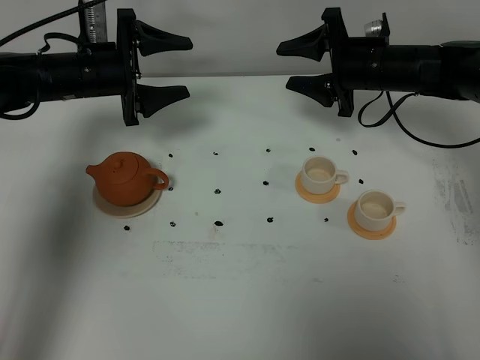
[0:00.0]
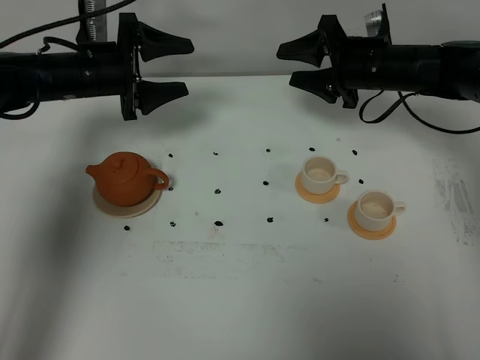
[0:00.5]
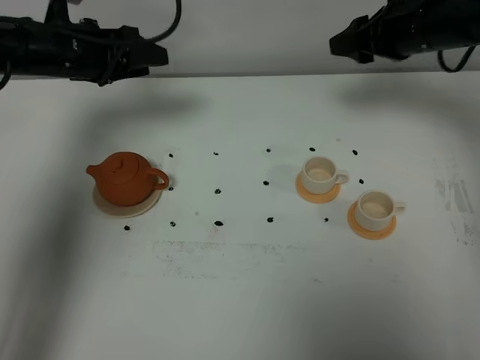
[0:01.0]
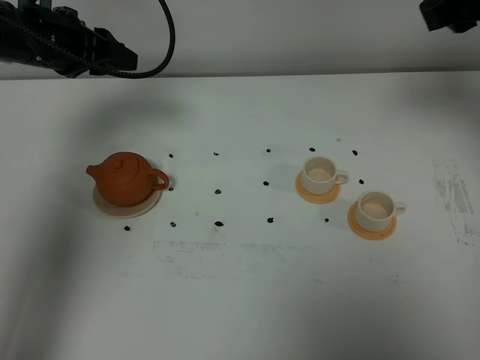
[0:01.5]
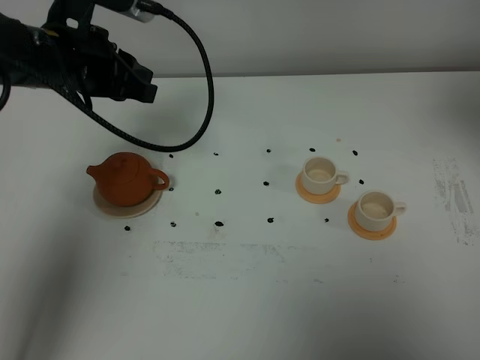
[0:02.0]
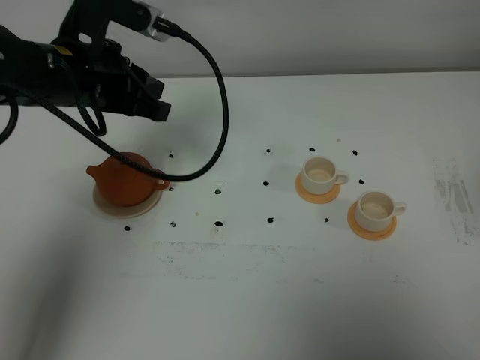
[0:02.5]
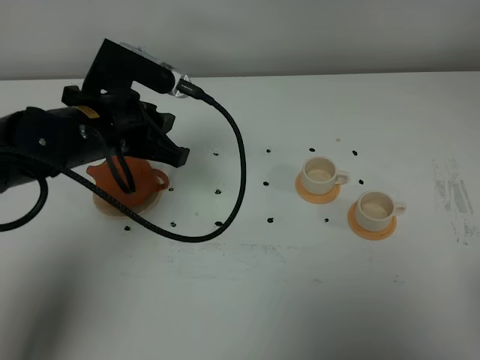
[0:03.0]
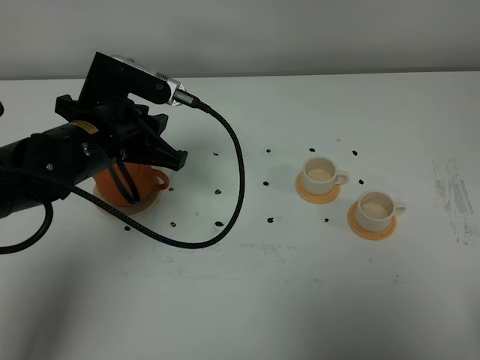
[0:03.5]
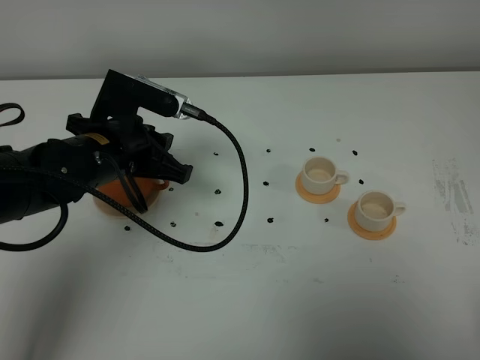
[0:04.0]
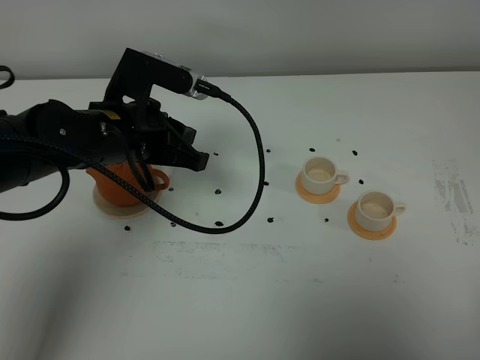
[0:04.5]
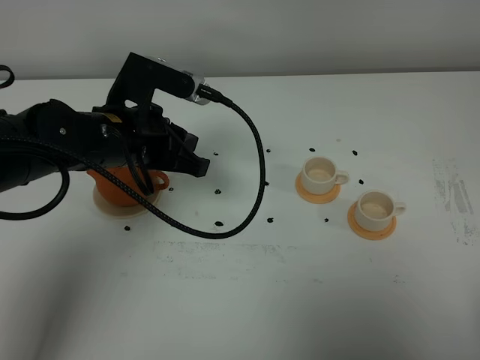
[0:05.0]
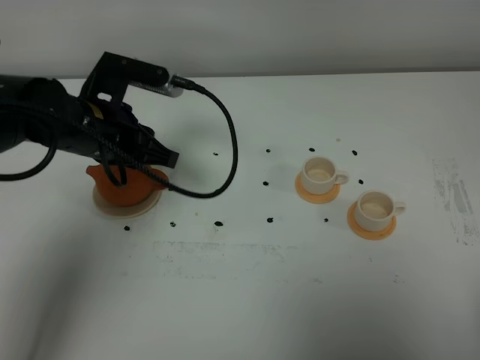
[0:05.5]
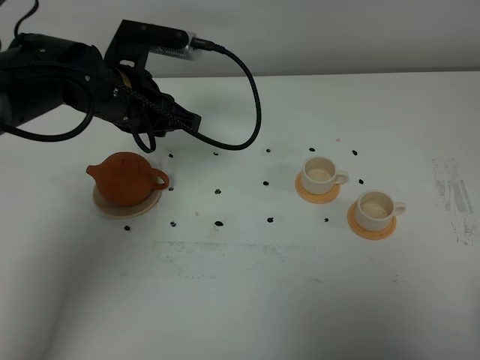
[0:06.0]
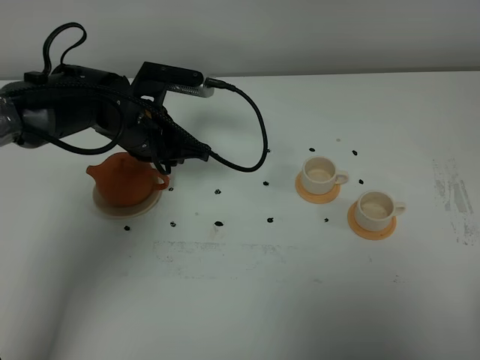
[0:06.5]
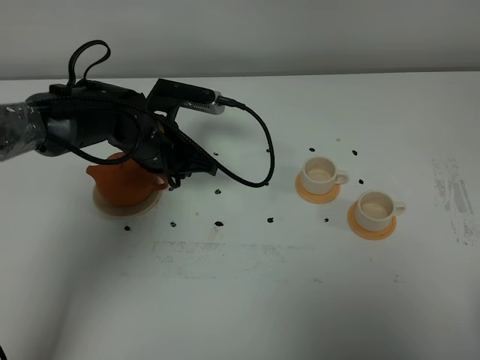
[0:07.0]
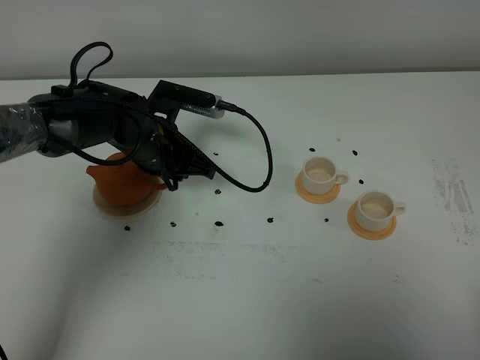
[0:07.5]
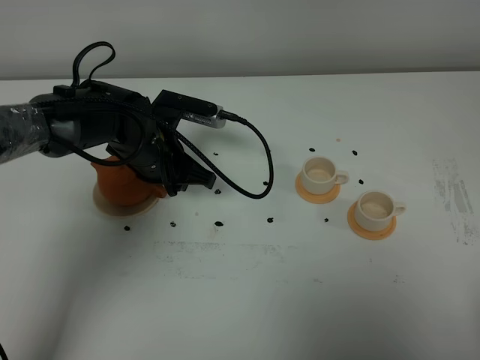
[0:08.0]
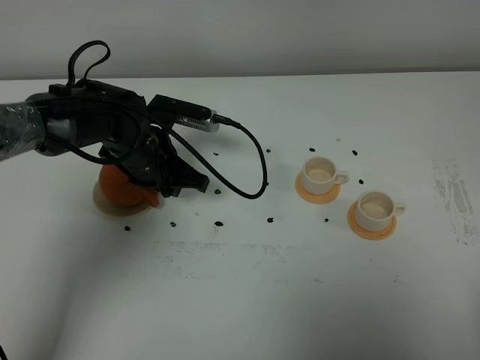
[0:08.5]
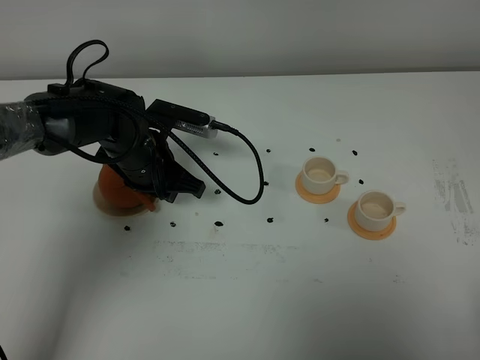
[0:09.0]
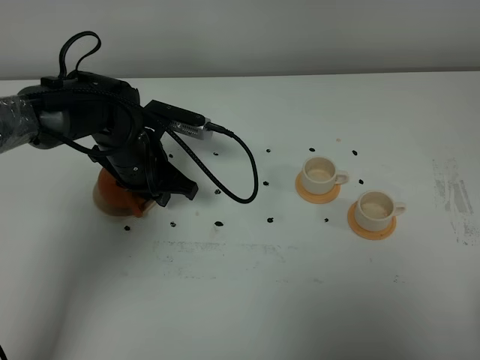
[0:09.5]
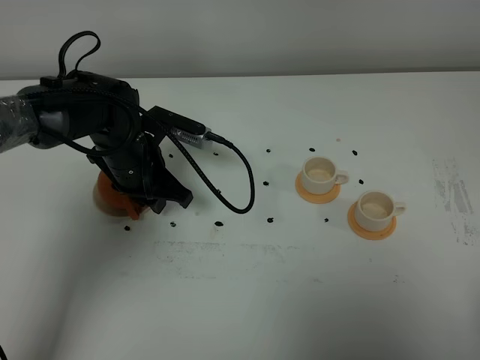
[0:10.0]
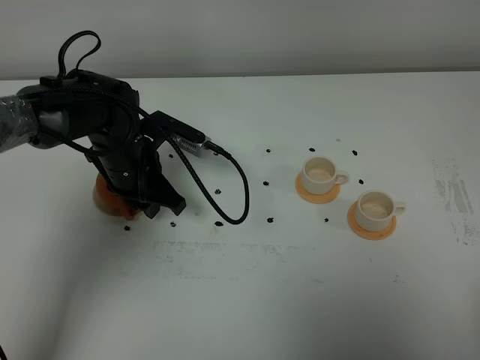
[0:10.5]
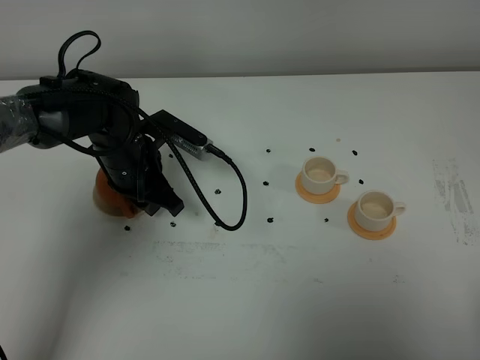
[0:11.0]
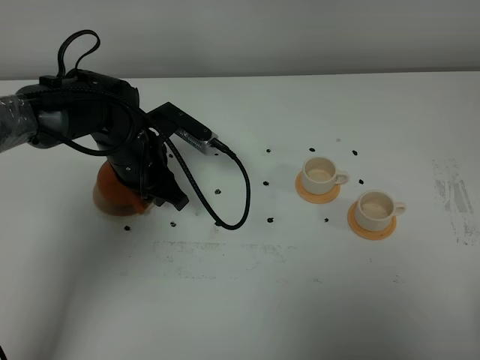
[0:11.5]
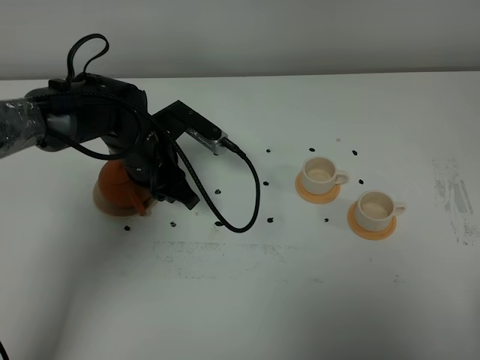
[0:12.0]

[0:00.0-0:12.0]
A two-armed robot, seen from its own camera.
Task of the whole recording: grasp the brown teapot and pour the tea into the two white teacups one by one, put the brown teapot back in its original place.
0:00.0 to 0:02.0: The right gripper shifts about 35 cm upward and backward. The left gripper shifts about 15 cm upward and backward, and closes its fingers.
0:02.0 to 0:04.0: The right gripper is displaced backward and downward by some 30 cm, and closes up. Meanwhile the left gripper goes some 10 cm downward and backward.
0:04.0 to 0:06.0: The left gripper heads forward, covering roughly 5 cm.
0:06.0 to 0:08.0: The left gripper moves downward, approximately 10 cm.
0:08.0 to 0:10.0: The grippers make only small movements.
0:10.0 to 0:12.0: The grippers make only small movements.

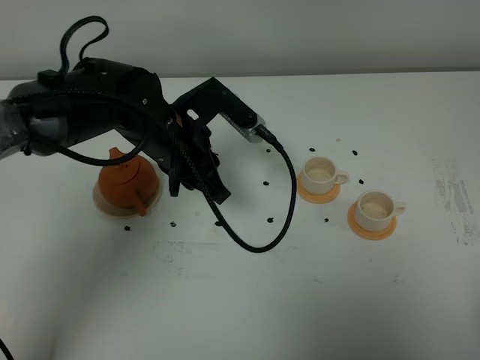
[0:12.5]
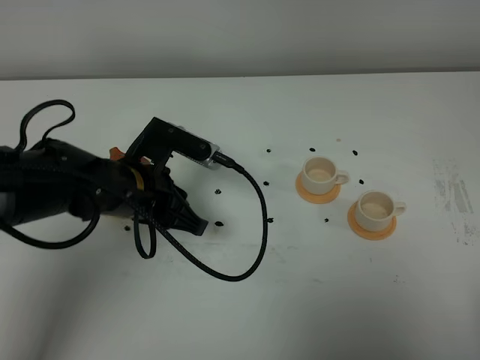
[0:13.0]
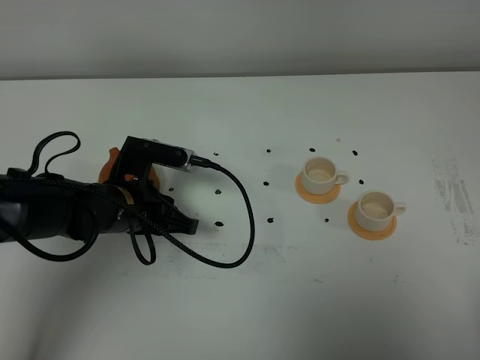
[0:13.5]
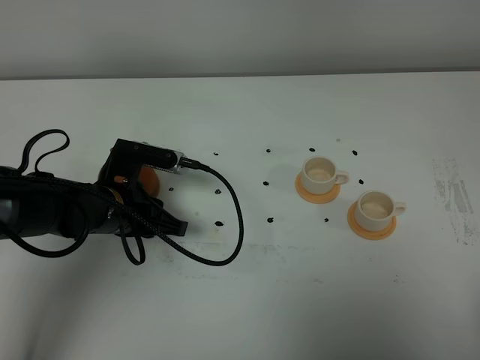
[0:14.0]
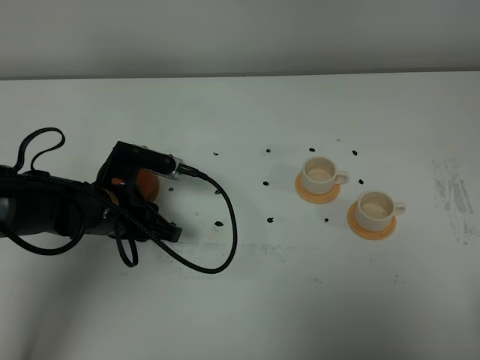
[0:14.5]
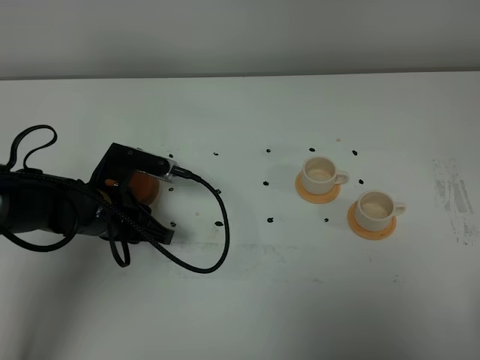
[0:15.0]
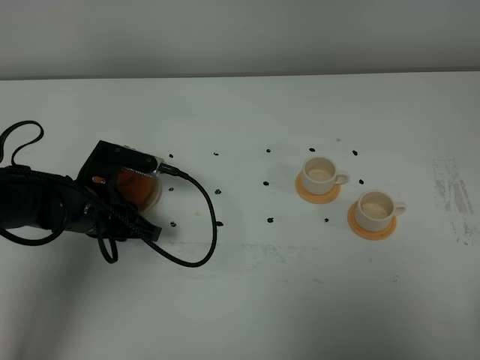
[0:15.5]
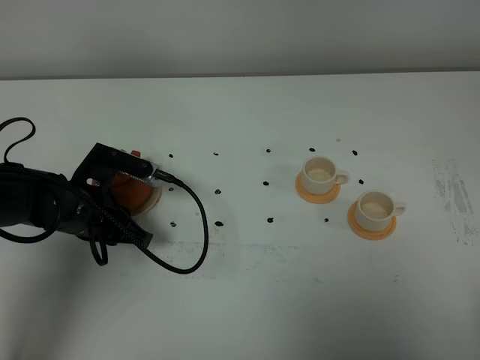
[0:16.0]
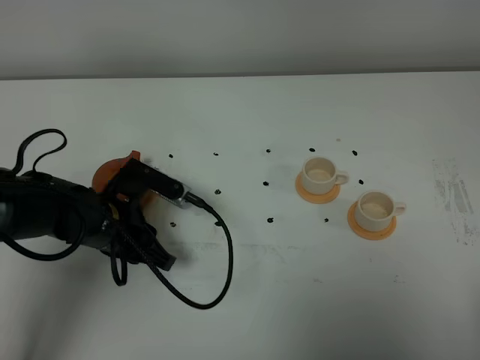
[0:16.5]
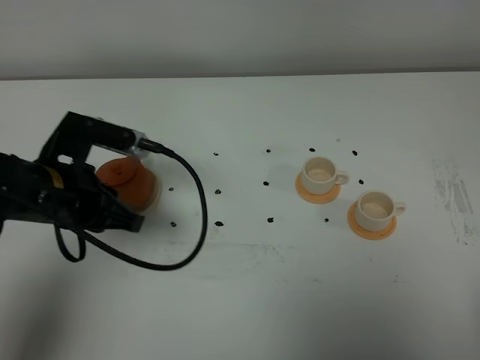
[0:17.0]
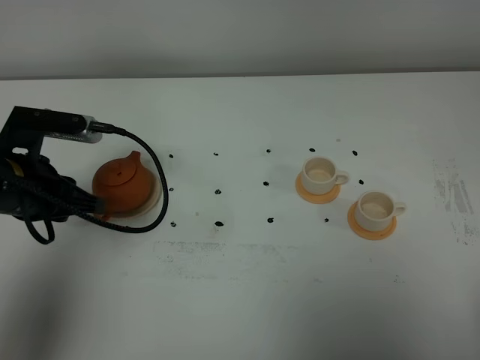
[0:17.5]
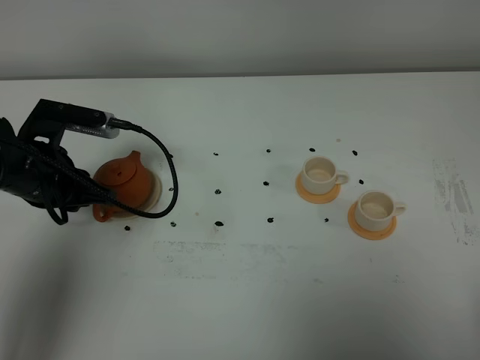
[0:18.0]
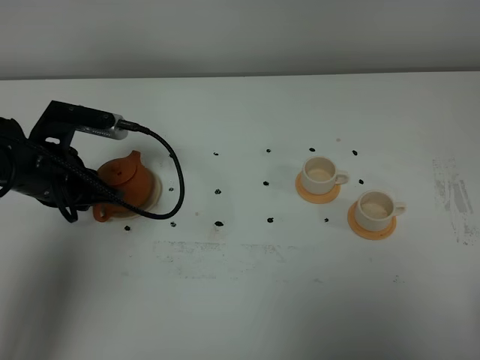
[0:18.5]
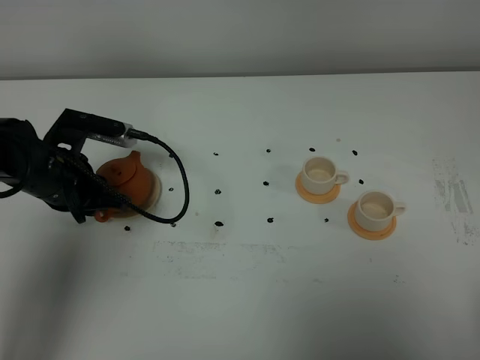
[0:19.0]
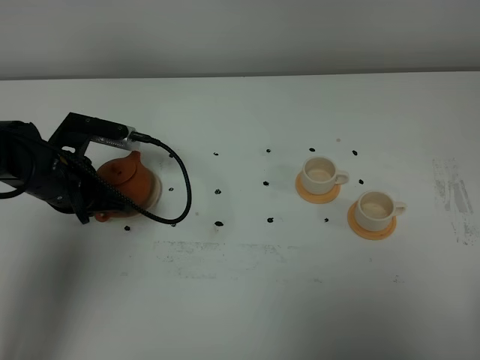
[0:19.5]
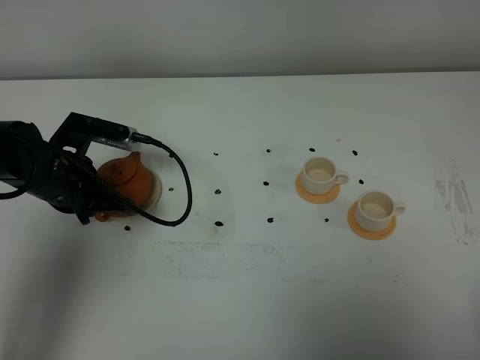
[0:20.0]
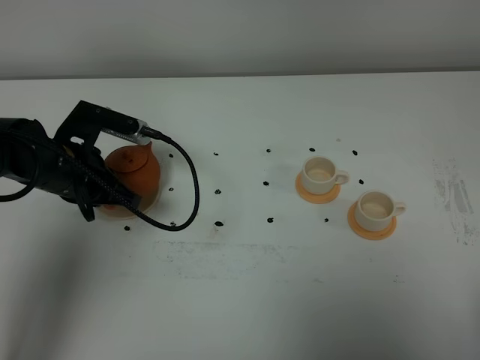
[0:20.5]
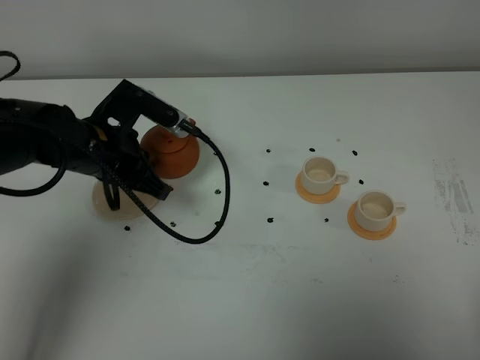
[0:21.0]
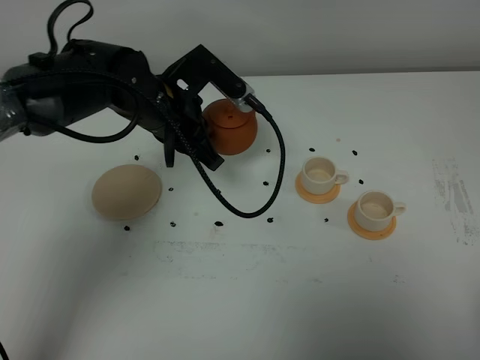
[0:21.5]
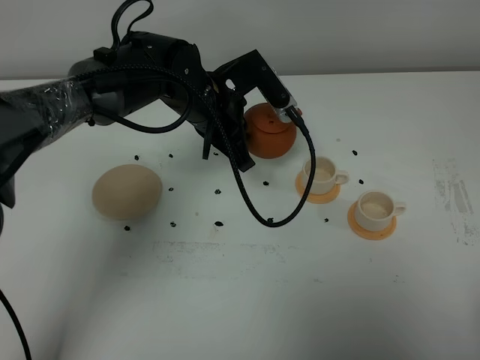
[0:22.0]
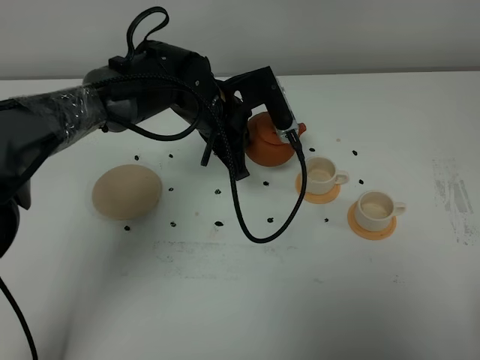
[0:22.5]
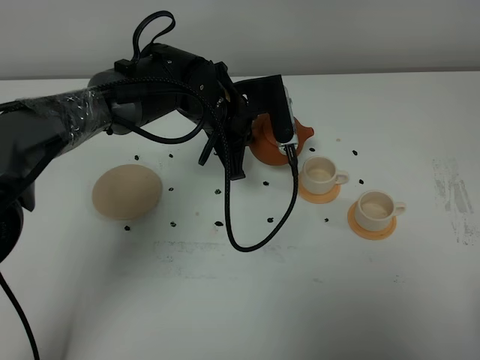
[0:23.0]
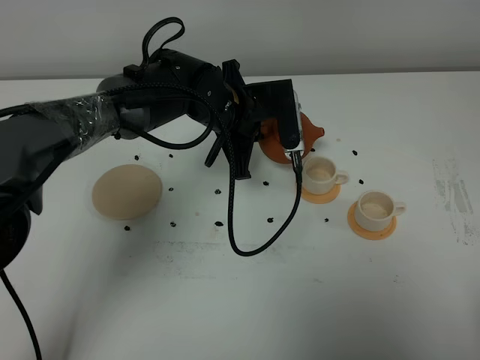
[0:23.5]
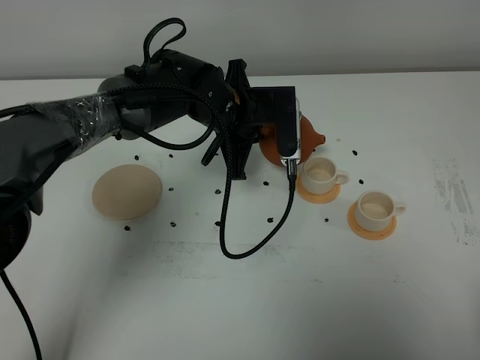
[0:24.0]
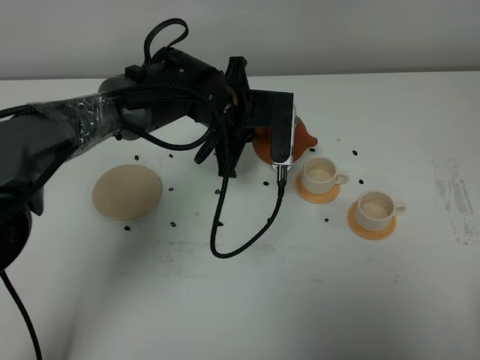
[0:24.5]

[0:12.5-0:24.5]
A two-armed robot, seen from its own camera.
Task of the whole recording: grasp the brown teapot and pour the tea into the two white teacups one by one, put the brown teapot back in its original place.
Step, 0:12.5 to 0:20.5: Pick up the teapot with the left gripper.
0:12.5 to 0:14.5: The left gripper moves downward and to the left, about 15 cm.
0:14.5 to 0:16.5: The grippers stay close to where they were, moving slightly.
0:16.5 to 0:18.5: The left gripper goes approximately 10 cm to the left and upward.
0:18.5 to 0:20.5: The left gripper closes its fingers.
0:20.5 to 0:22.5: The left gripper is displaced to the right and forward by approximately 20 cm.

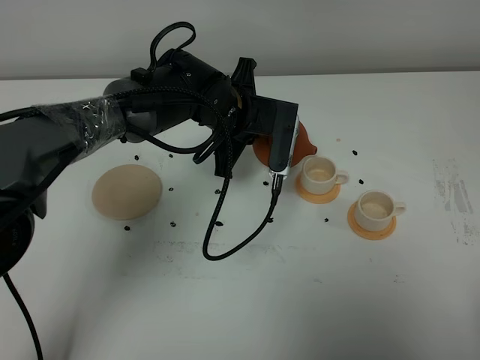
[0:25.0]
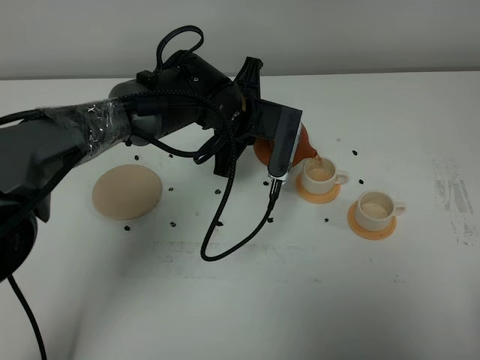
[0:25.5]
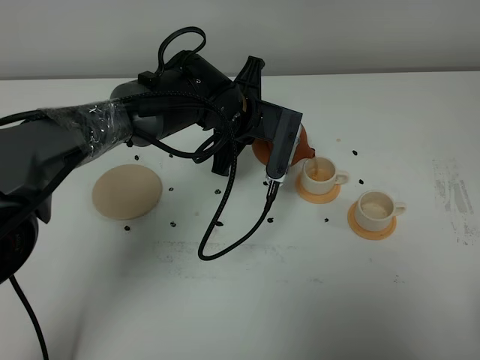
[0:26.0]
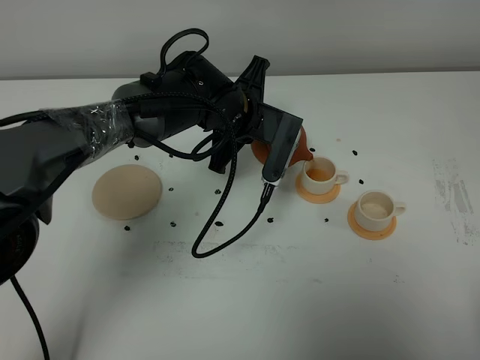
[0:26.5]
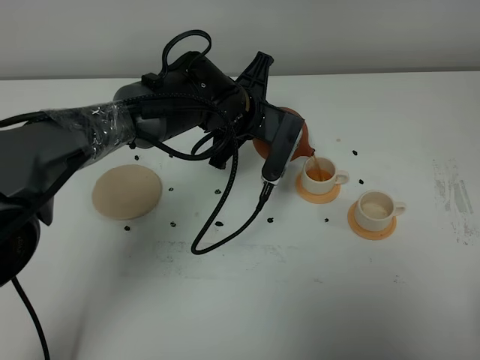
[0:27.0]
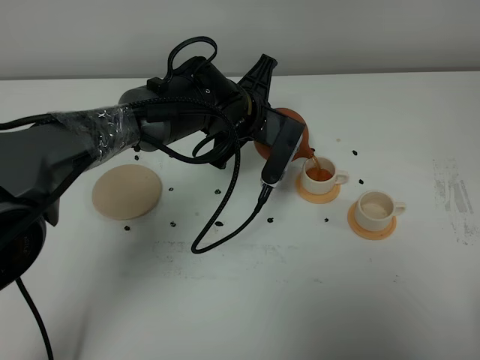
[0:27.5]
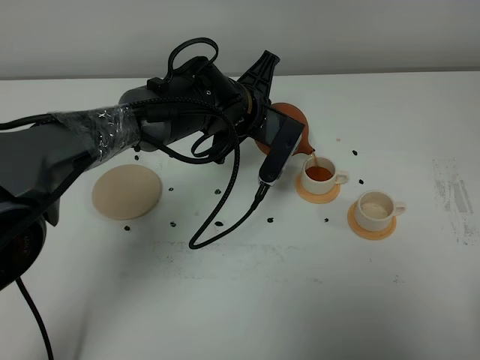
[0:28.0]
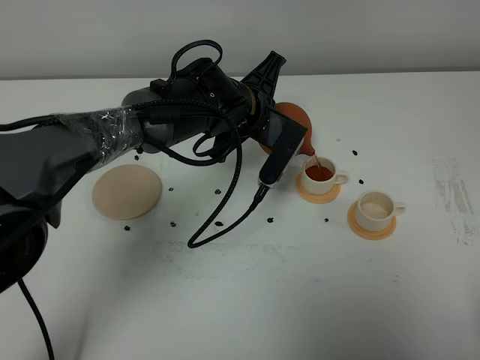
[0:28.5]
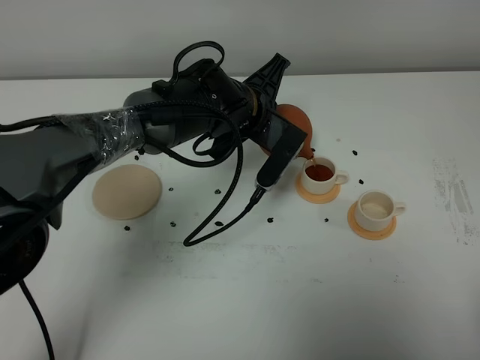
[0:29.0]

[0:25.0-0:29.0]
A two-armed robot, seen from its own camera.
Task of the whole recording: grasp the brown teapot and pour the tea into the two white teacups one by one, put the brown teapot back in its original place.
0:25.0 to 0:27.0: The grippers stay close to where they were, moving slightly.
0:27.0 to 0:29.0: The grippers make only small movements.
